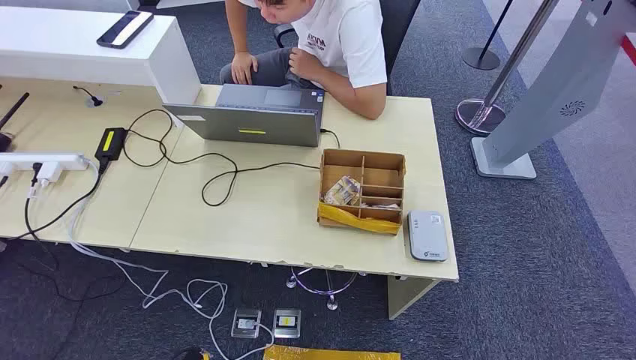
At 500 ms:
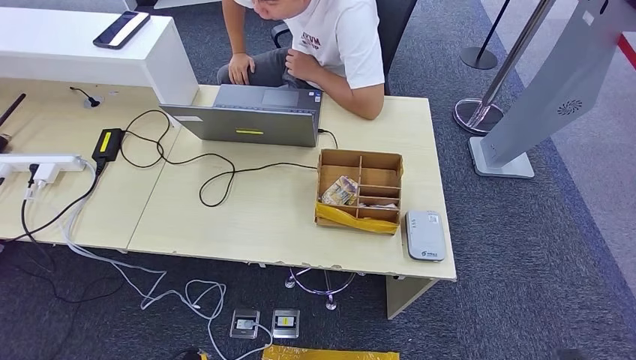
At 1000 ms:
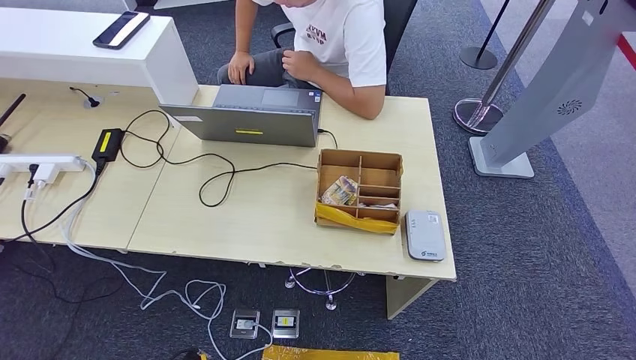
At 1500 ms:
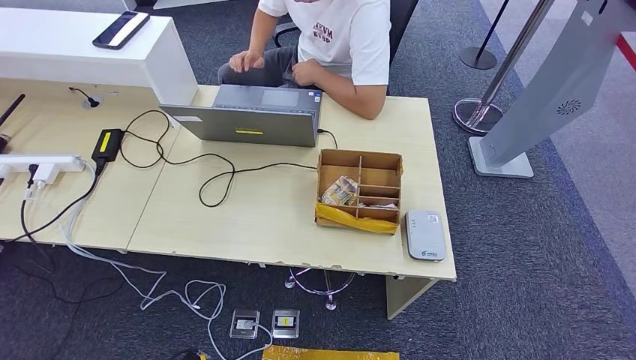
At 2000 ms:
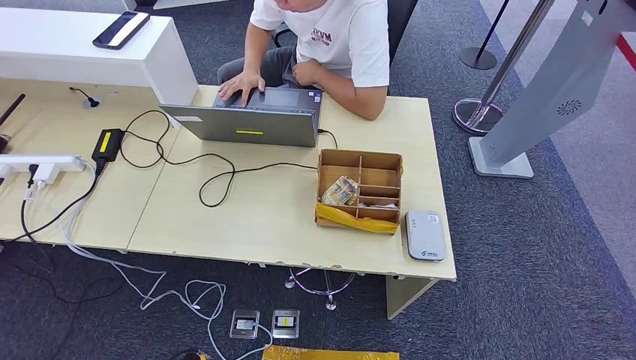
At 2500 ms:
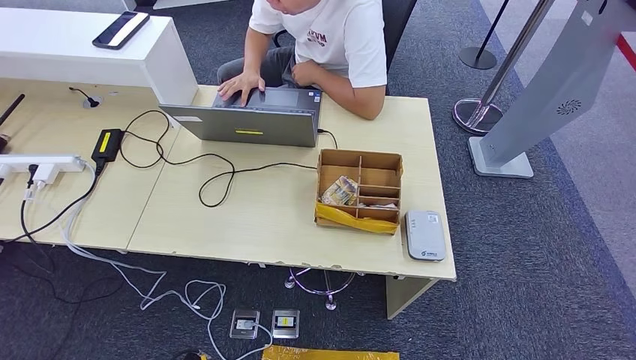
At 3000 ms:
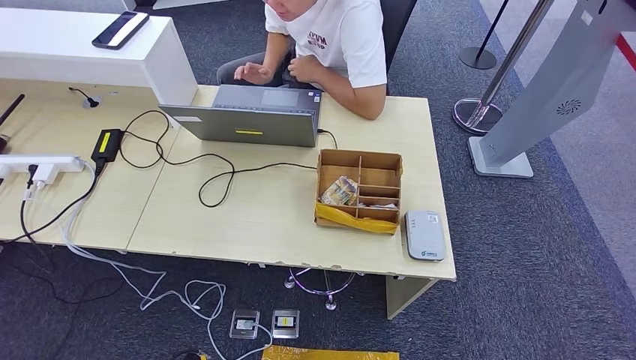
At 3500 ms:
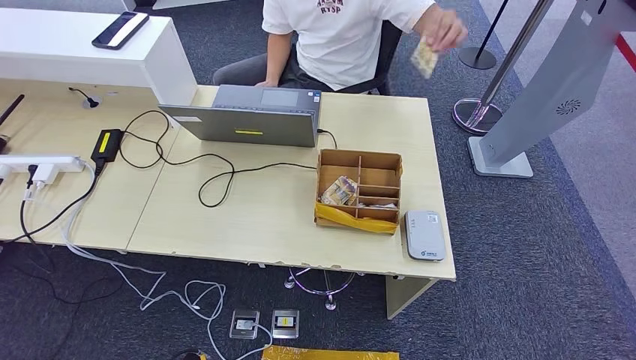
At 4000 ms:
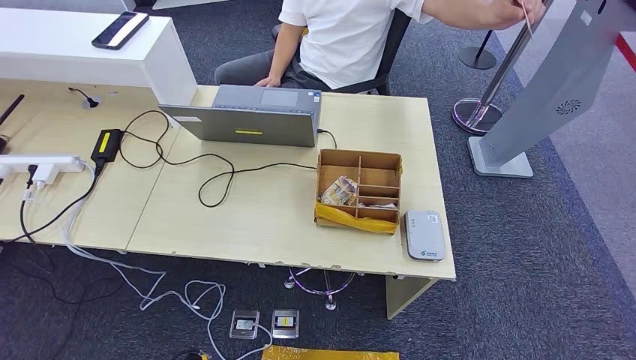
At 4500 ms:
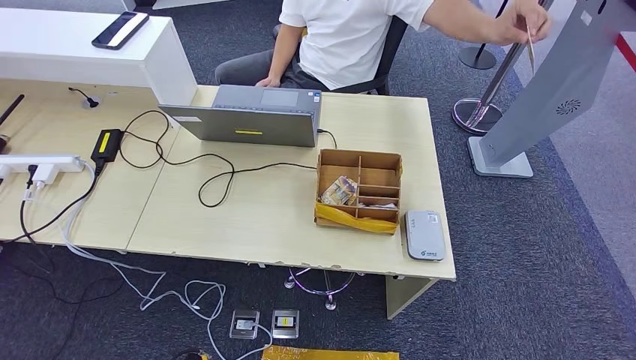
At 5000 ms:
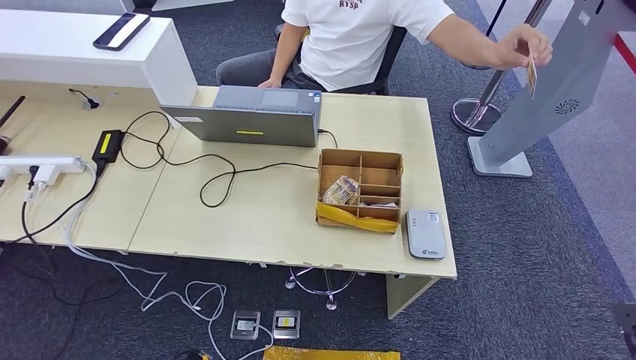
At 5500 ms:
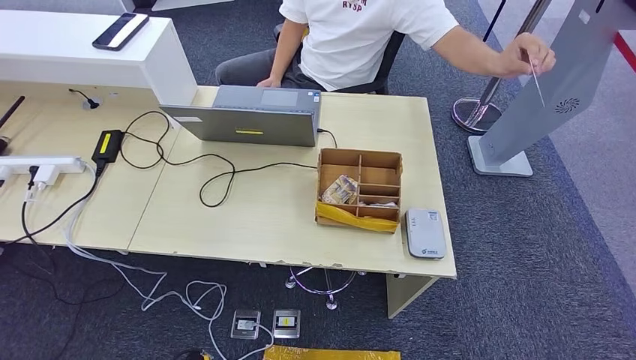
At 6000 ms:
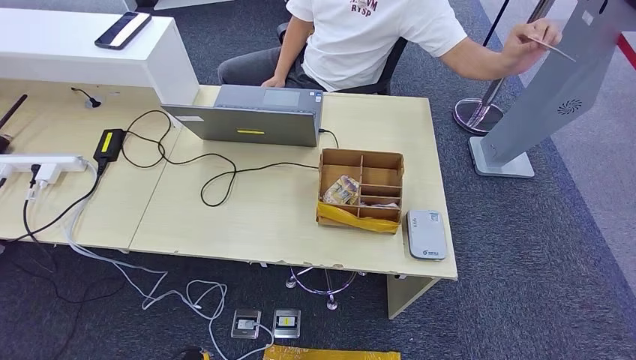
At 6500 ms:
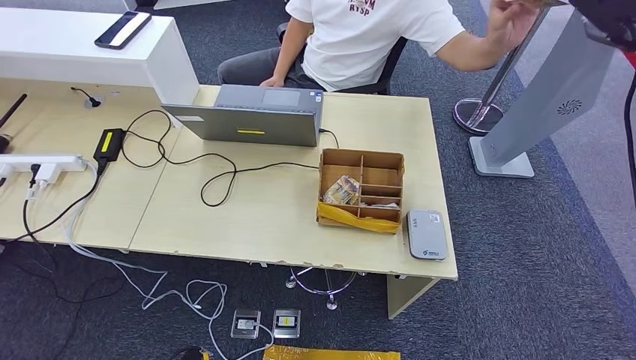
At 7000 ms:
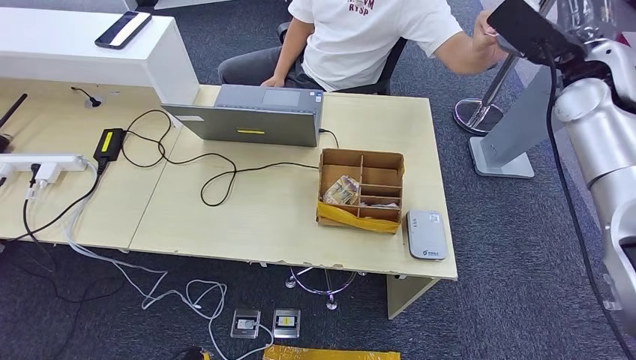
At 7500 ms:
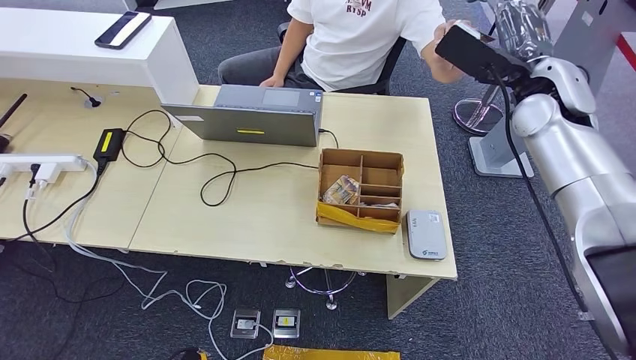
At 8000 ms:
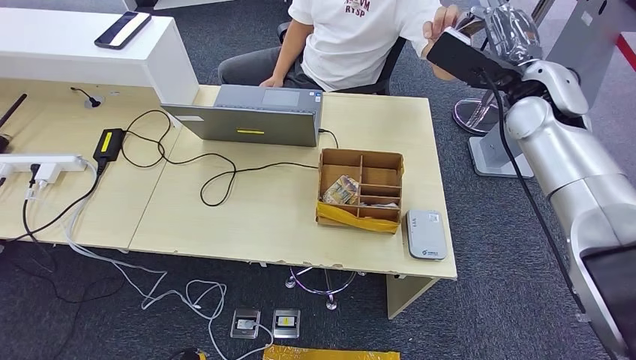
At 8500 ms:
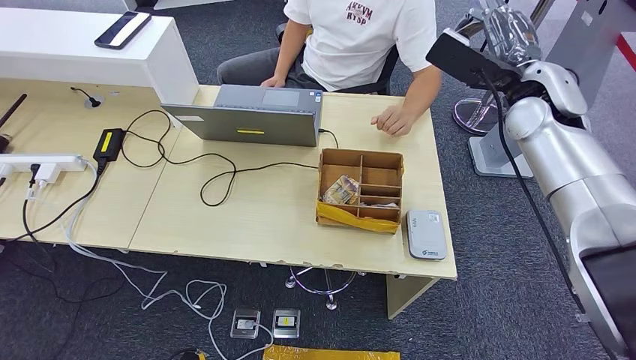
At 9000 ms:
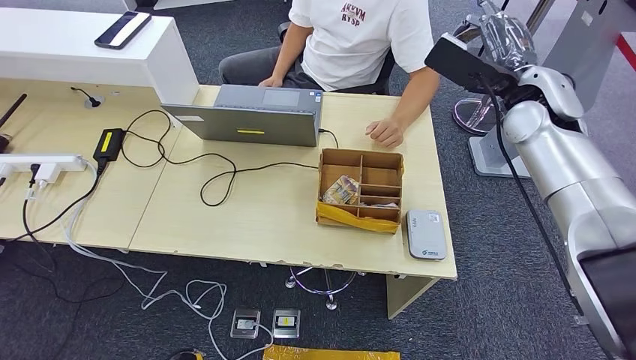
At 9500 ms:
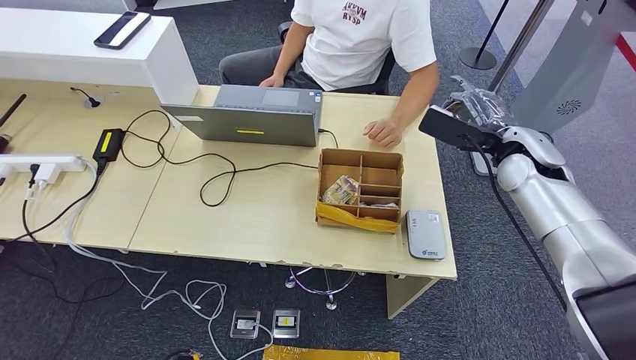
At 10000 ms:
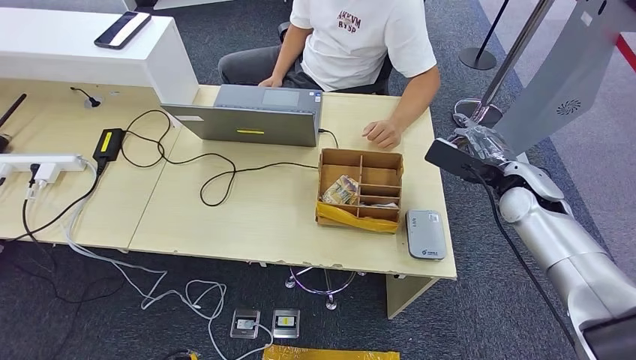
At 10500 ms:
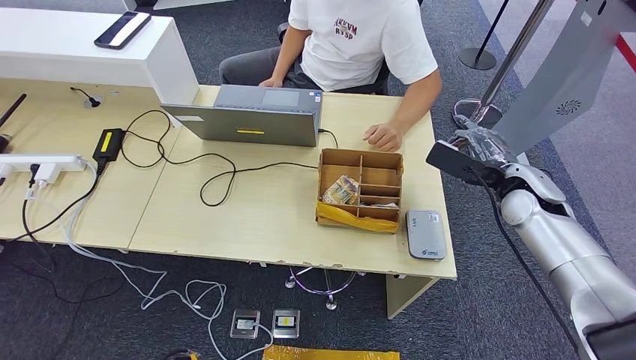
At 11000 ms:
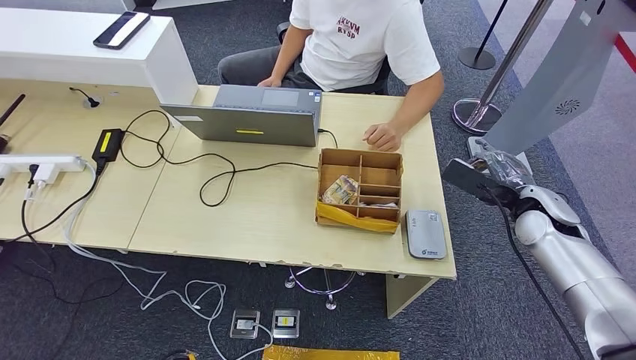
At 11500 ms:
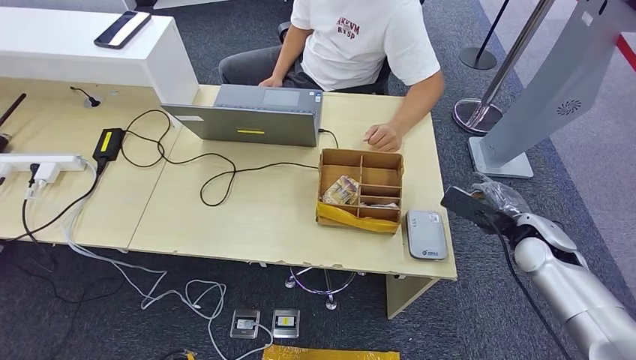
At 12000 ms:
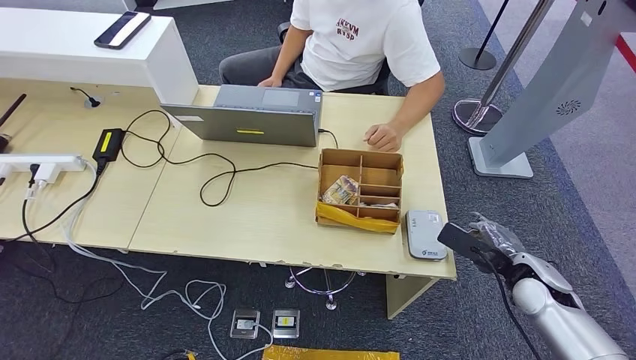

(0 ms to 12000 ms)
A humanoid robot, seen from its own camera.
Step, 0 ms - 8500 ms: Take the ID card from the person's hand.
2000 ms - 4000 ms: The two hands keep their place.
4000 ms - 6000 ms: The right hand shifts some 60 cm upward and forward.
6000 ms - 8000 ms: The right hand is displaced to the left by some 25 cm.
8000 ms - 10000 ms: The right hand shifts some 15 cm downward.
10000 ms - 12000 ms: The right hand shifts approximately 15 cm downward and backward.

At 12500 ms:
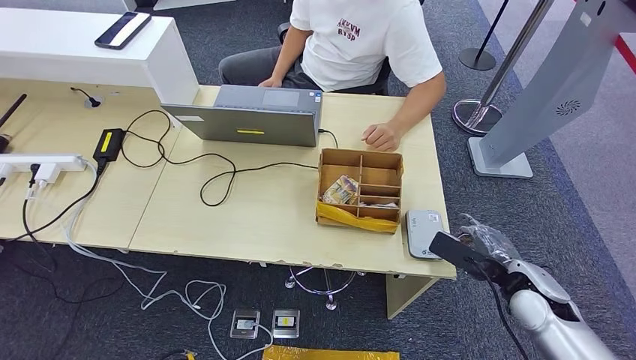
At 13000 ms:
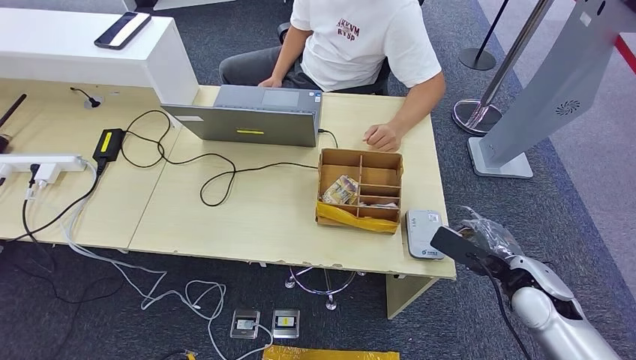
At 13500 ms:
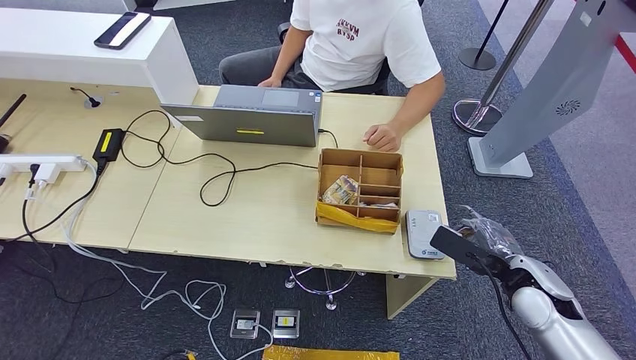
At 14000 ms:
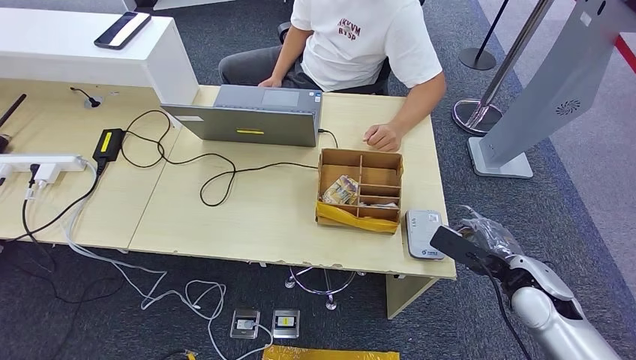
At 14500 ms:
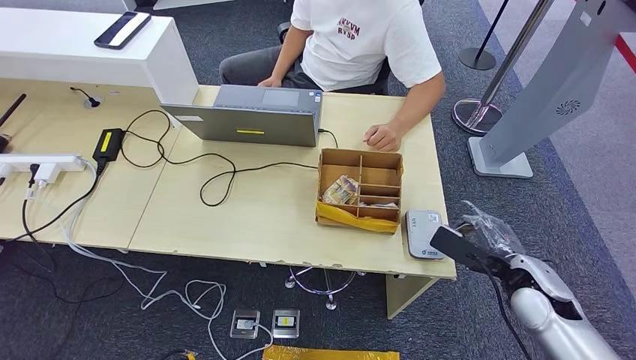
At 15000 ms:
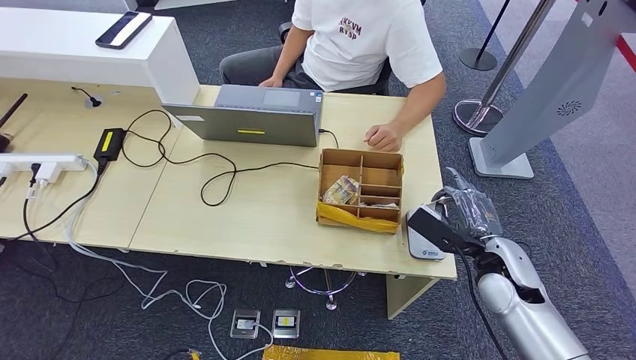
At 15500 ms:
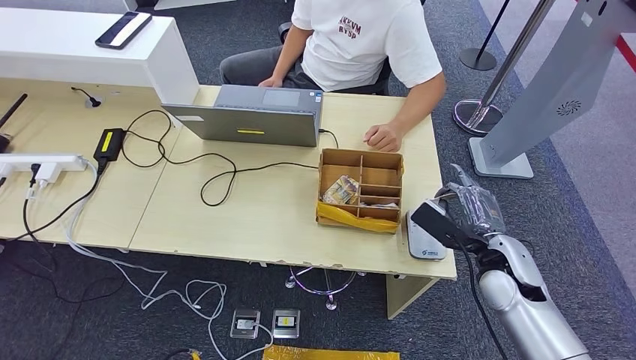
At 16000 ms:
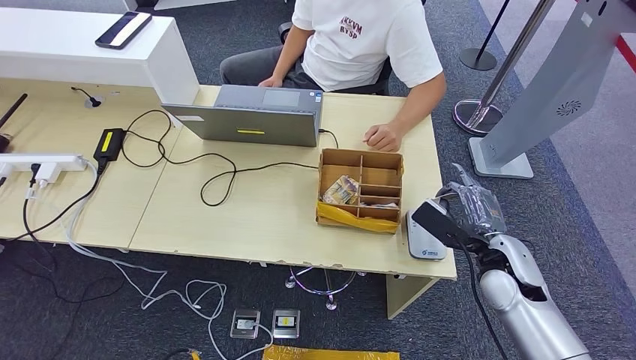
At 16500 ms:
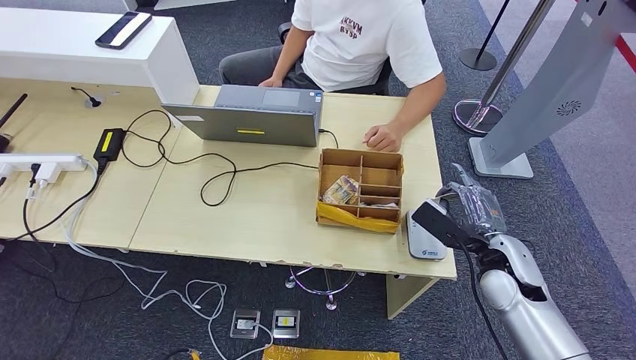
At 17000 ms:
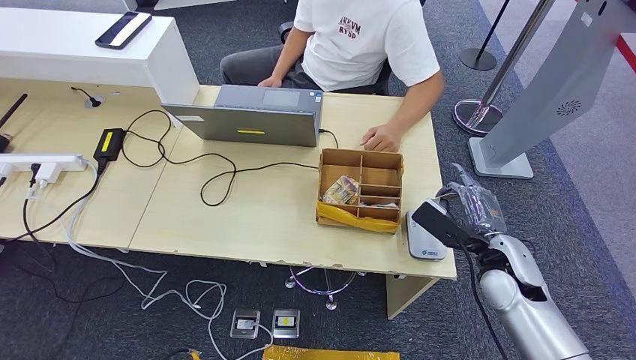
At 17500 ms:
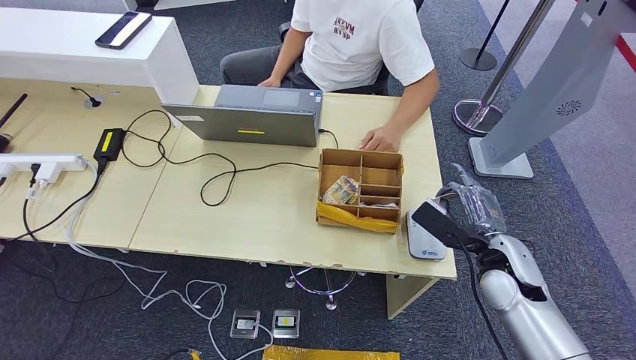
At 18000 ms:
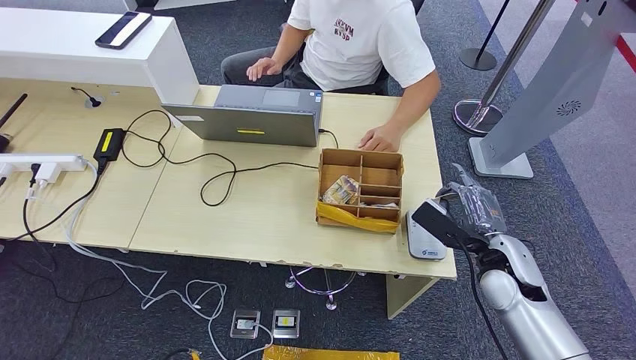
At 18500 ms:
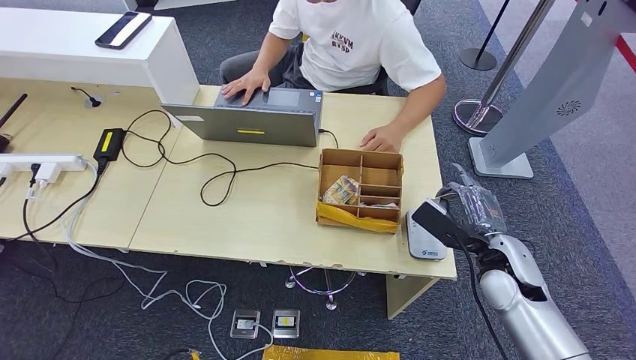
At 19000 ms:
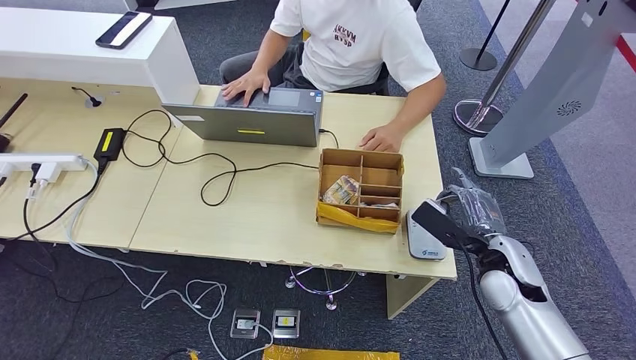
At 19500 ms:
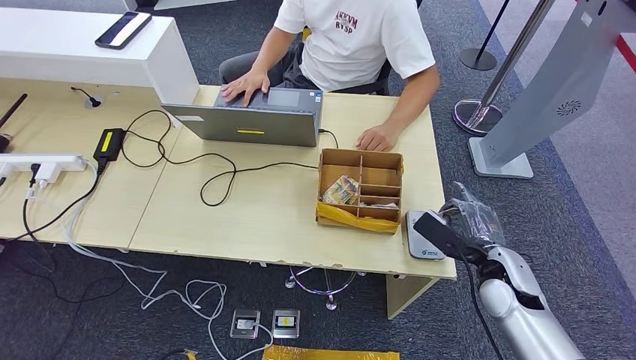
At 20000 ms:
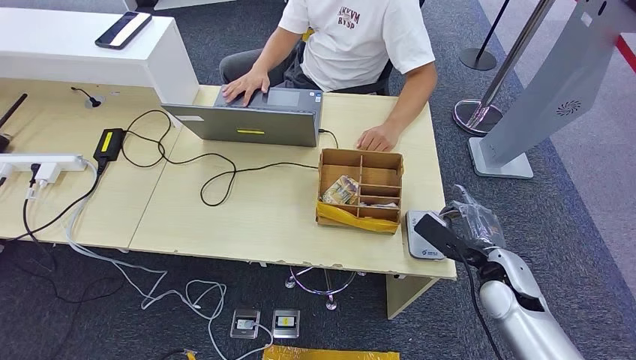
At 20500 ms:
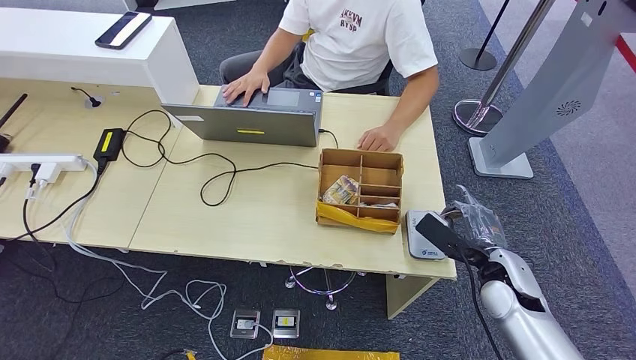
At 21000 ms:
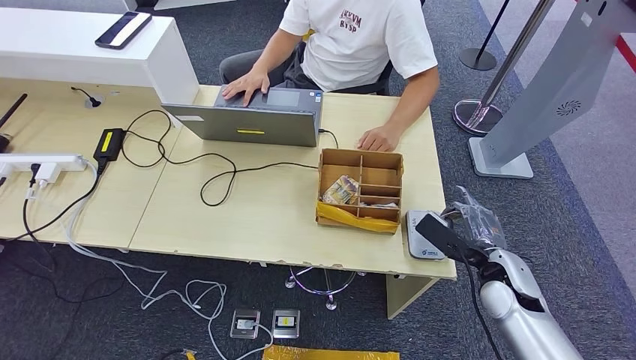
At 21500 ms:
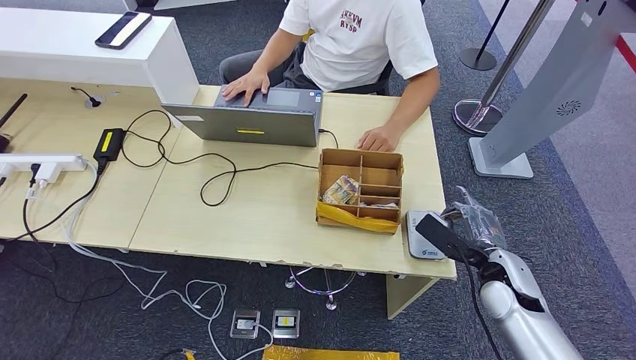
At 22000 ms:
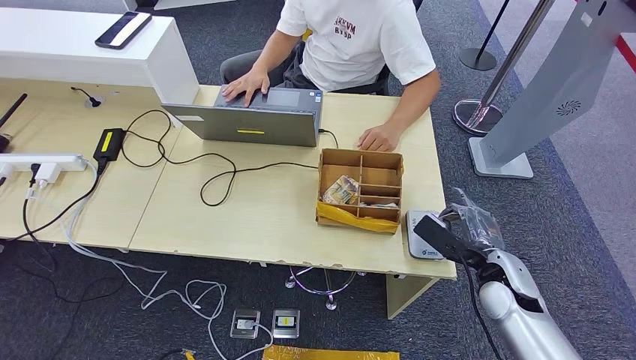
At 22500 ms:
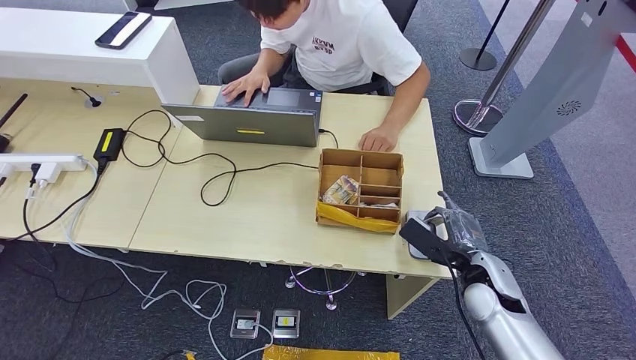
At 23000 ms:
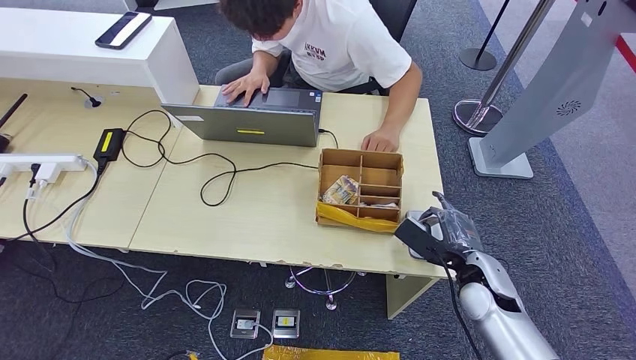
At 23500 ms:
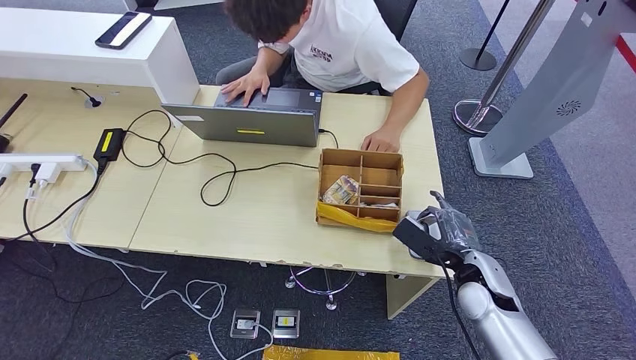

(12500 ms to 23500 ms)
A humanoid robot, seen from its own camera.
12500 ms - 14500 ms: The hands make only small movements.
14500 ms - 16000 ms: The right hand shifts by roughly 5 cm.
16000 ms - 18000 ms: Both hands stay about where they are.
18000 ms - 20000 ms: The hands move only a little.
20000 ms - 21500 ms: Neither hand changes place.
21500 ms - 23500 ms: There are only small adjustments of the hands.
